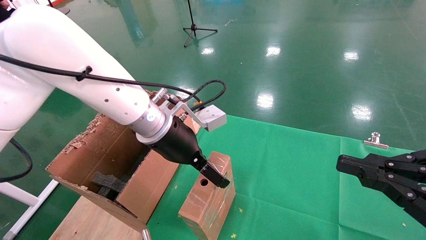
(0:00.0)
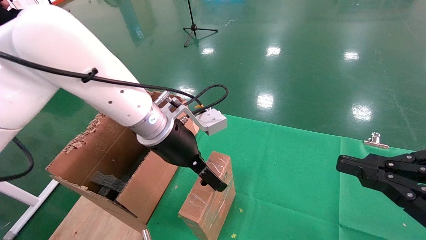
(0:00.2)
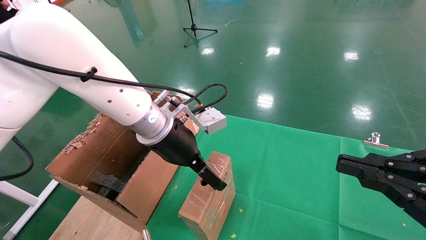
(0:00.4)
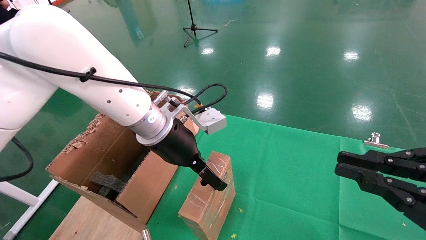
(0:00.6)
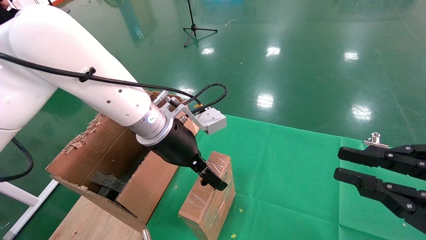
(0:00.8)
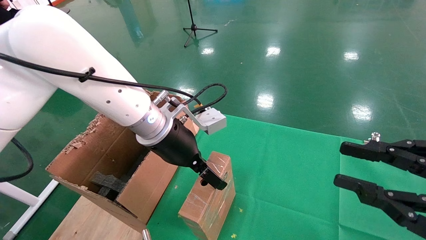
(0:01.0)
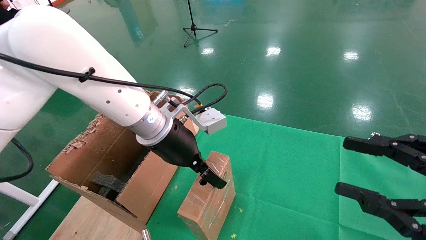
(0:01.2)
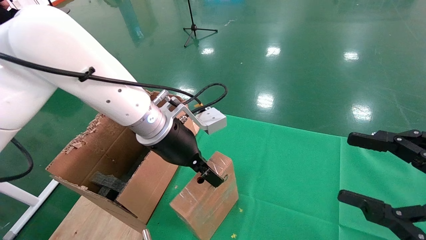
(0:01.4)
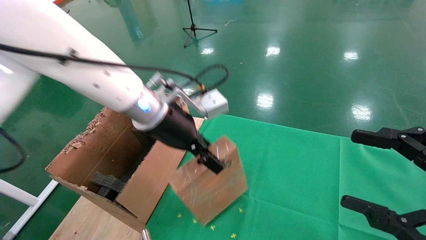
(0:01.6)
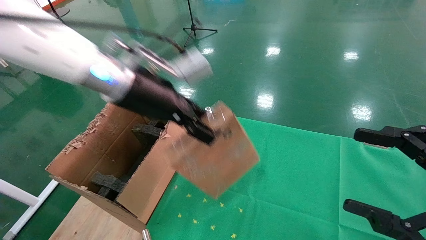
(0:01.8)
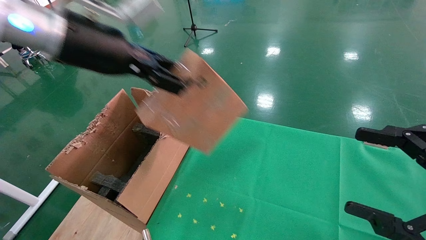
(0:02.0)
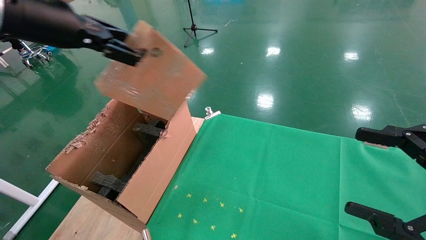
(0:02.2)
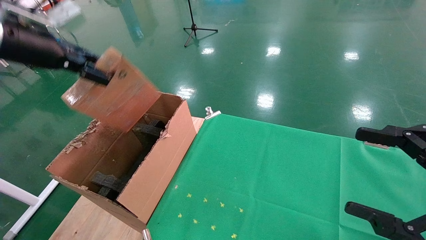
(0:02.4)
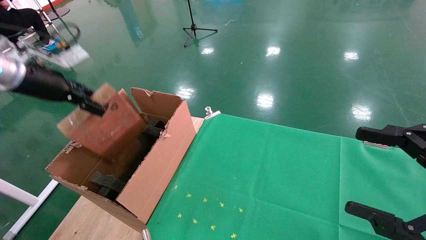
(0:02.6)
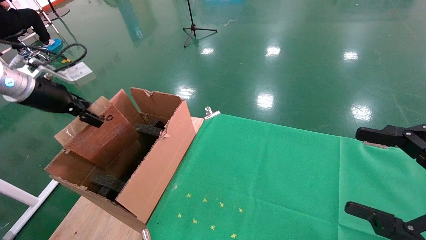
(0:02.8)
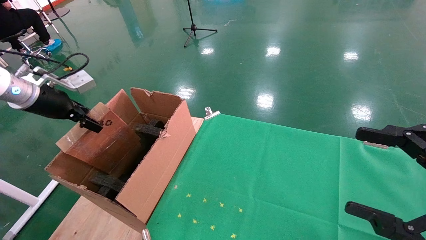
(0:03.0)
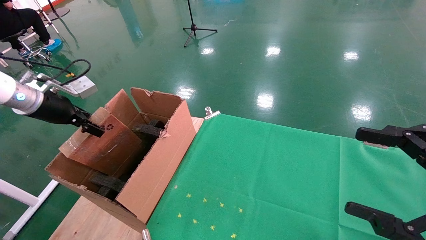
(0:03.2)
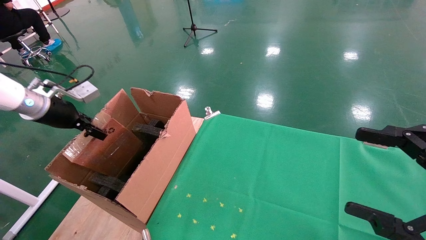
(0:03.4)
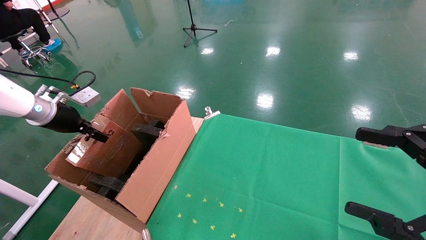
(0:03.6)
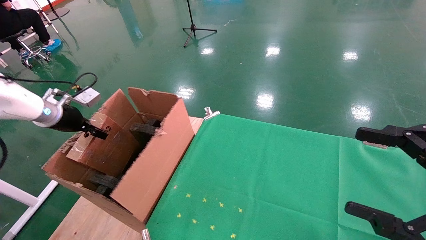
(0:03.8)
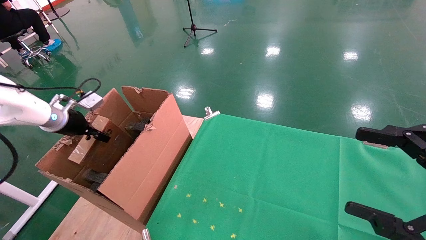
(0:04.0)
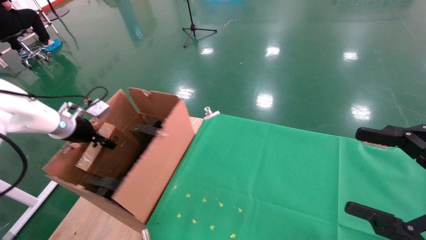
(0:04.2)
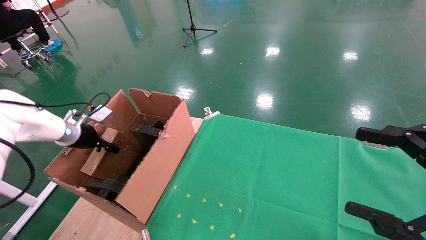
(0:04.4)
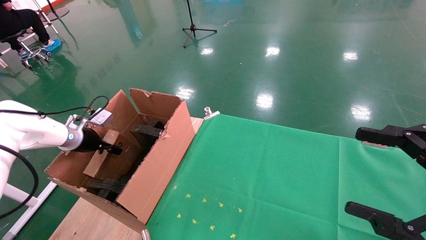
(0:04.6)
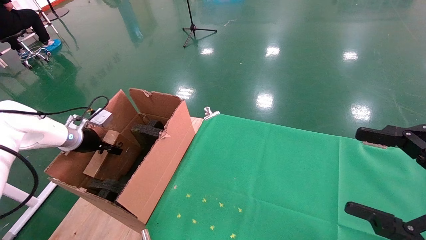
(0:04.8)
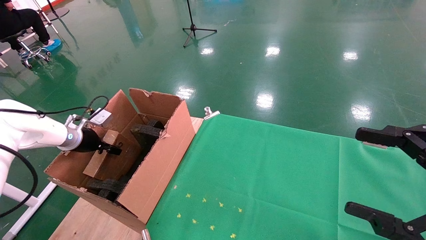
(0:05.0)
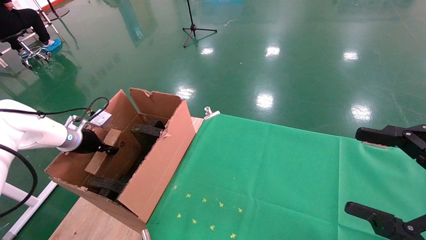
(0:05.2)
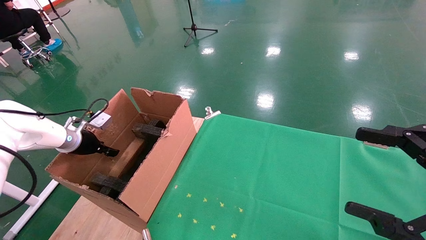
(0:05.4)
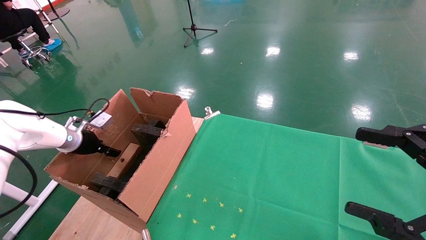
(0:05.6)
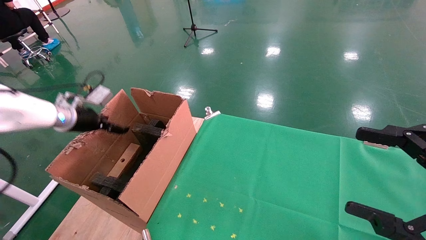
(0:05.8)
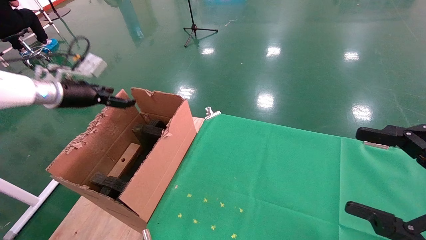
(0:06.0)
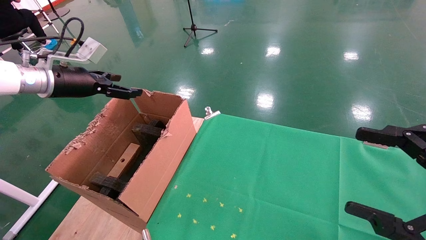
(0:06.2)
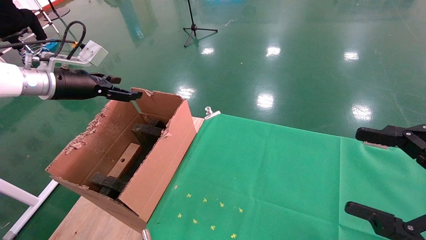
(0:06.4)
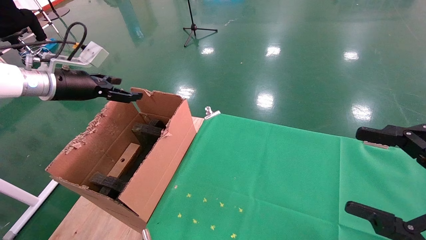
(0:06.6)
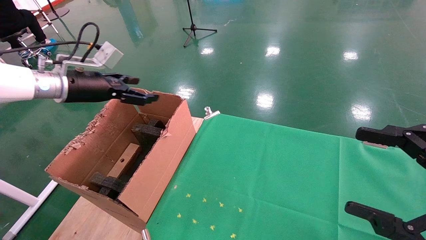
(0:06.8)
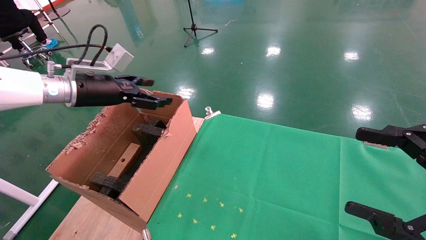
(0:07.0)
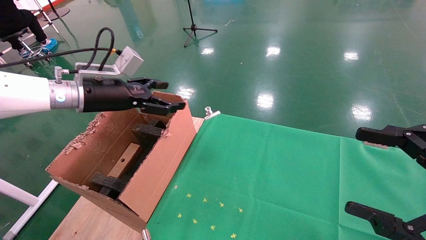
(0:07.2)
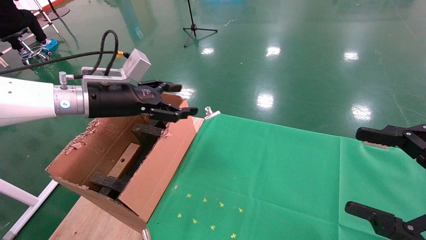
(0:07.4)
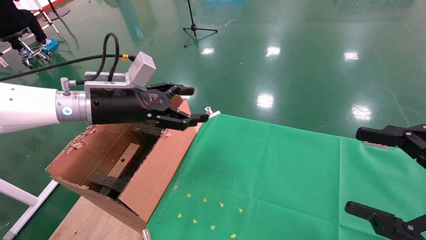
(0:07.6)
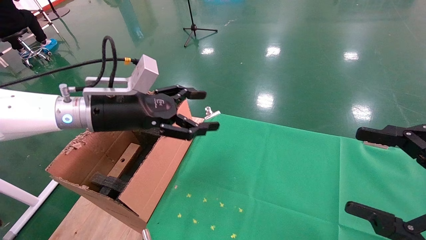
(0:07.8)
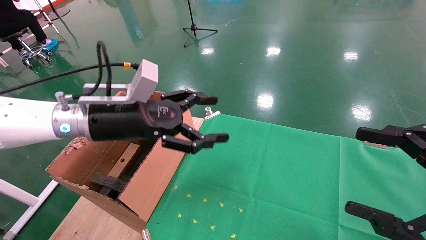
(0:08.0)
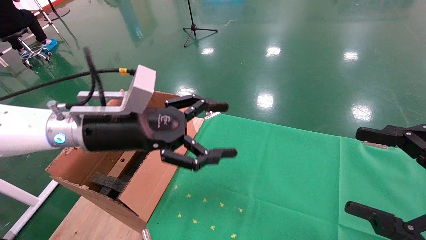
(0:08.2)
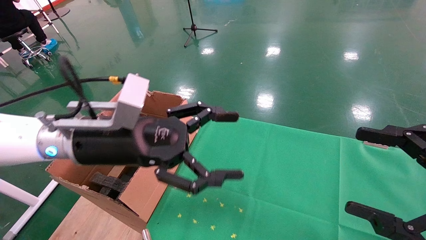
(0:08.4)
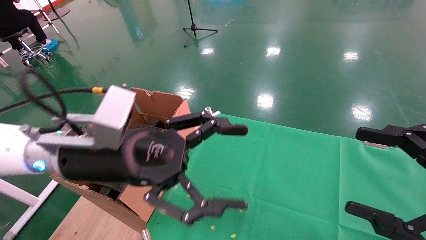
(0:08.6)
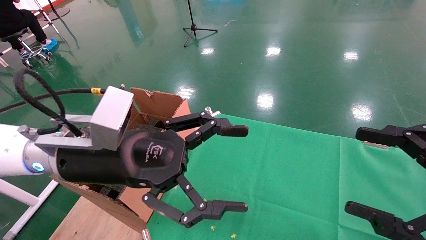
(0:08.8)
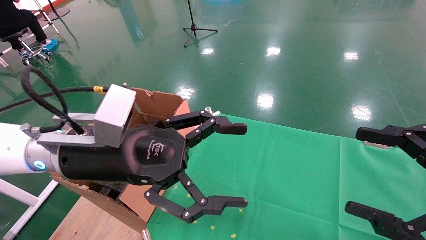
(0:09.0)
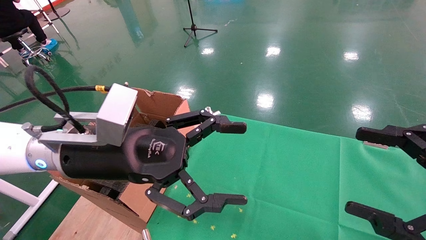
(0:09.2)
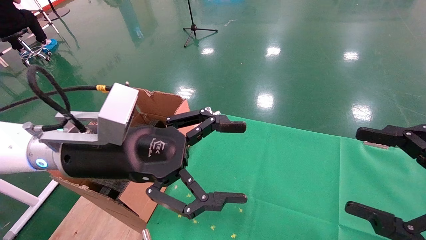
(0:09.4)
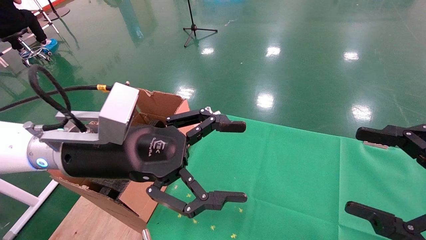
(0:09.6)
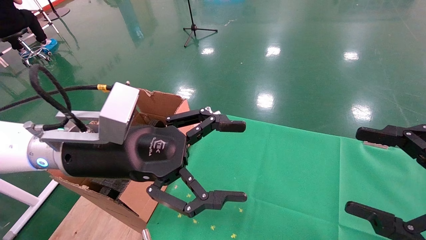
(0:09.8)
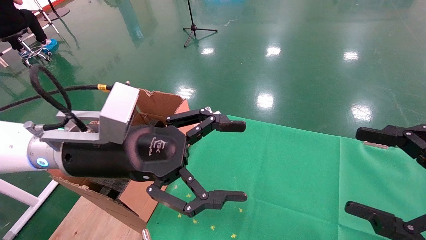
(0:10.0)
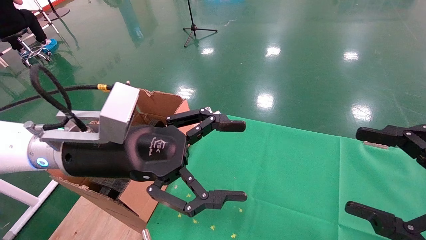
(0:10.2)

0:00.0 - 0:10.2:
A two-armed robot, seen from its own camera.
Task of the whole recording: using a robotic arm to pick up a cardboard box and palace it the carton.
Step, 0:01.6 - 0:06.0: Place the mouse and the power cord paper box into the container.
0:00.0 - 0:01.4: The left gripper closes. Meanwhile the right gripper opens.
0:01.4 - 0:03.0: The left gripper heads to the left, covering about 30 cm, and closes. Meanwhile the right gripper opens up.
0:03.0 - 0:04.4: The left gripper heads downward and forward, covering about 15 cm.
0:04.4 - 0:05.8: The left gripper heads upward, covering approximately 5 cm, and opens.
0:05.8 - 0:07.2: The left gripper goes about 15 cm to the right and upward.
0:07.2 - 0:08.8: The left gripper shifts roughly 20 cm backward and to the right.
0:08.8 - 0:10.2: Both grippers stay put.

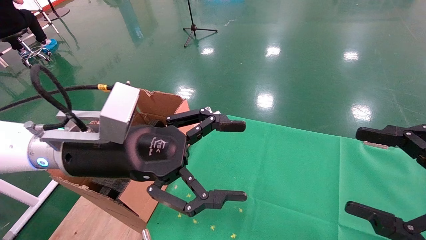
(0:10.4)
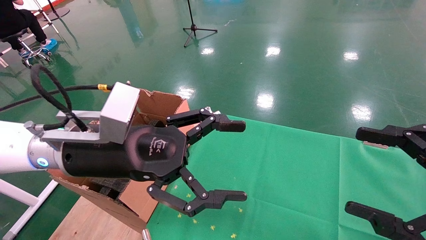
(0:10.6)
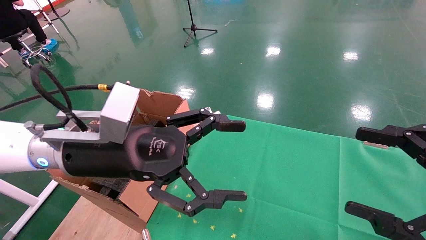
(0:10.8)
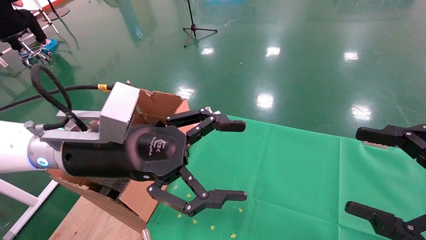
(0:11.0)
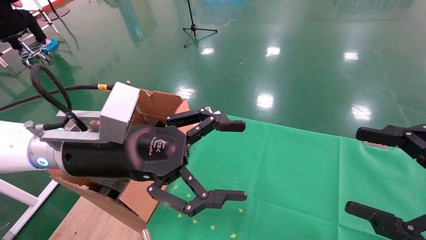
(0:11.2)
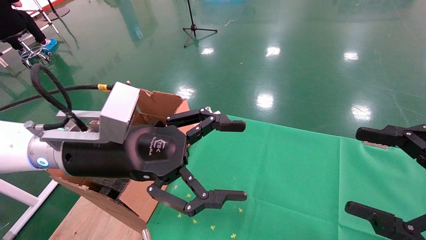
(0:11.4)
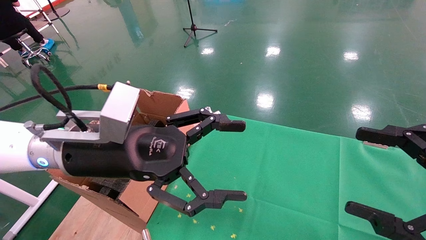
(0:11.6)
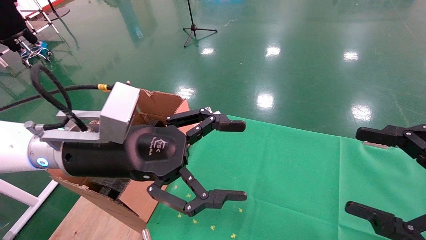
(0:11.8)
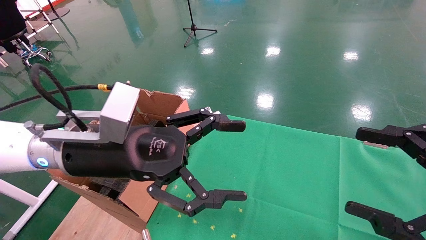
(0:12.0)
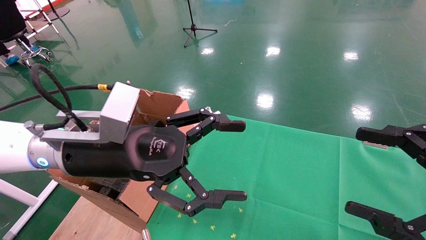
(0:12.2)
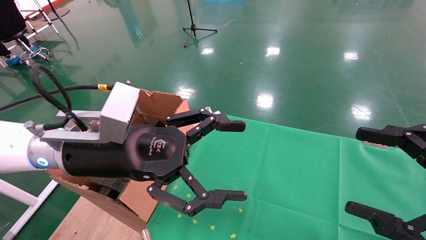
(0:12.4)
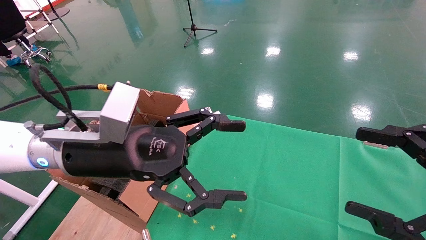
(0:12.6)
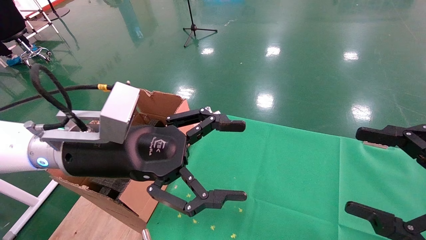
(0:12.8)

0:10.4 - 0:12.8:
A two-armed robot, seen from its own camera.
Task of the whole recording: using a robotic arm to pick up a cardboard box and palace it the carton.
0:10.4 - 0:12.8: Both grippers stay put.
